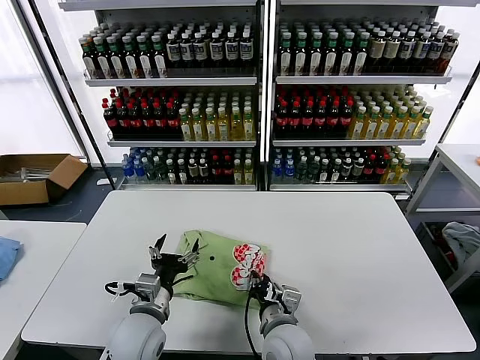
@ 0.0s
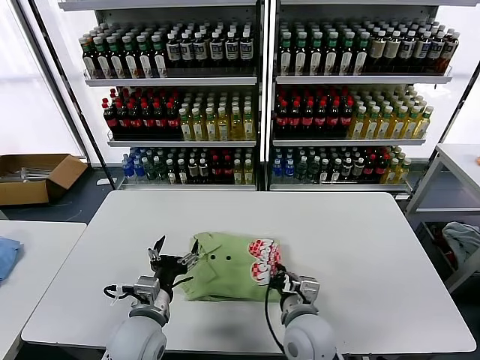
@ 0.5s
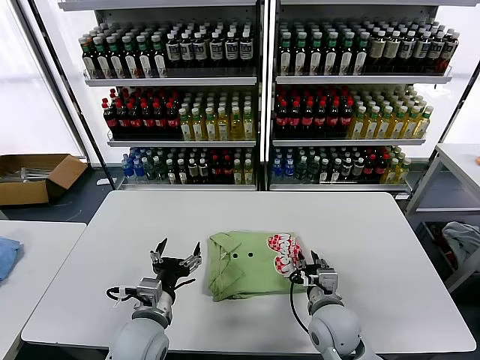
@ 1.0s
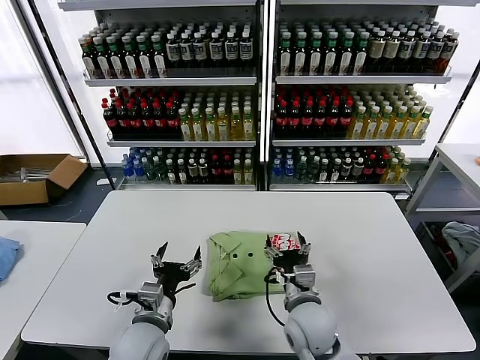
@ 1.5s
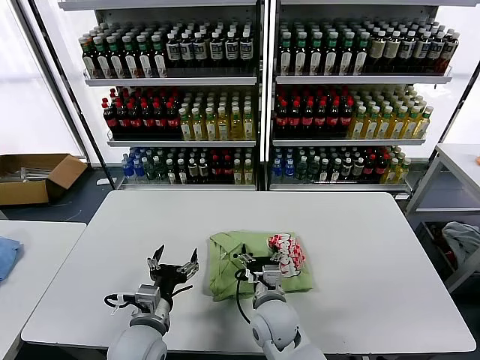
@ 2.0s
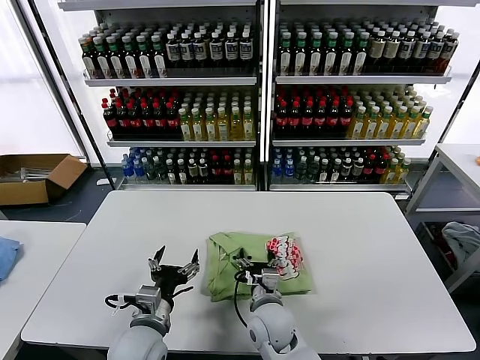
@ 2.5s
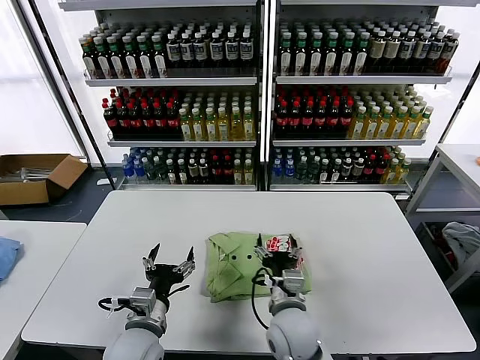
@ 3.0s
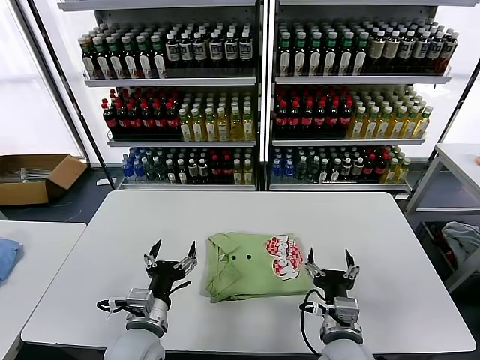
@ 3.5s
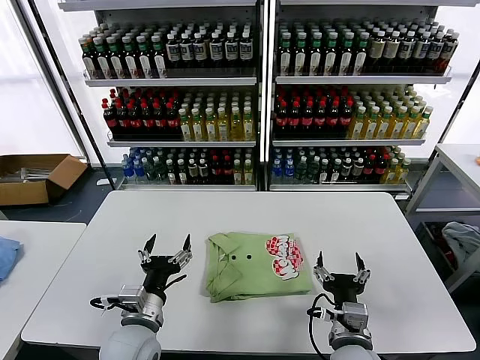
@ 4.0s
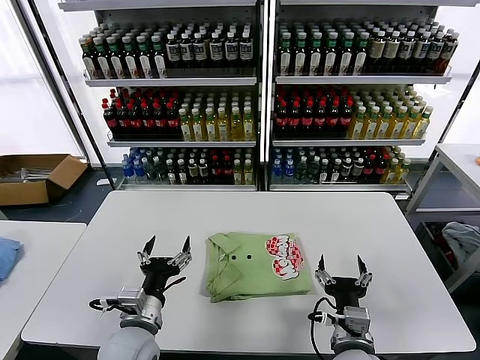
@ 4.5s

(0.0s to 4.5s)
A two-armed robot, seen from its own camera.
Task of the whole recording: fold and organize the clothes.
Step, 0.0s - 2.5s: Drag the clothes to the center of the table.
0.0s - 2.0s: The right gripper is displaced forward by some 5 cm, moves some 10 cm to the right and comes back, and opens its fingers.
2.0s - 4.5s: The right gripper shifts about 15 cm to the right and backward.

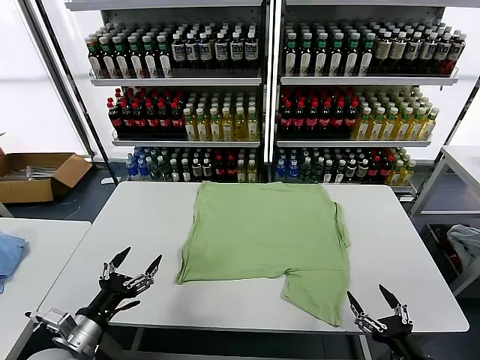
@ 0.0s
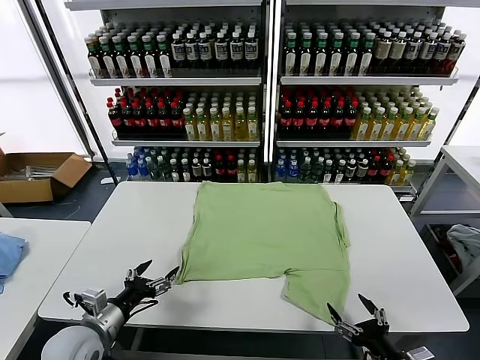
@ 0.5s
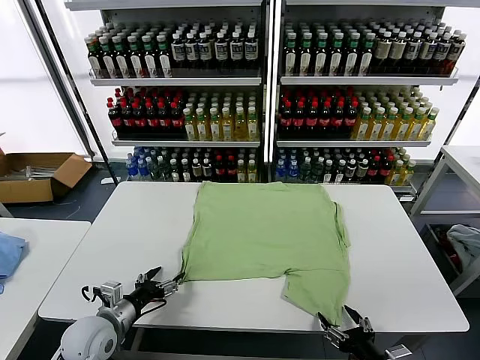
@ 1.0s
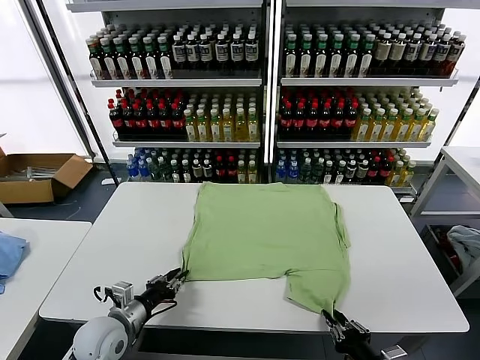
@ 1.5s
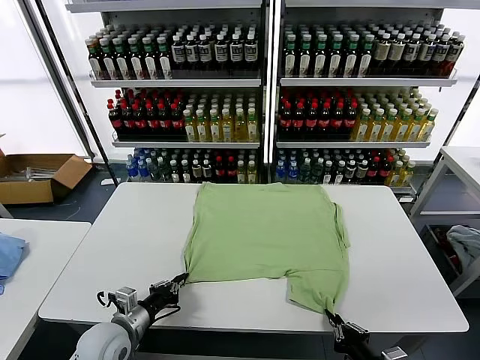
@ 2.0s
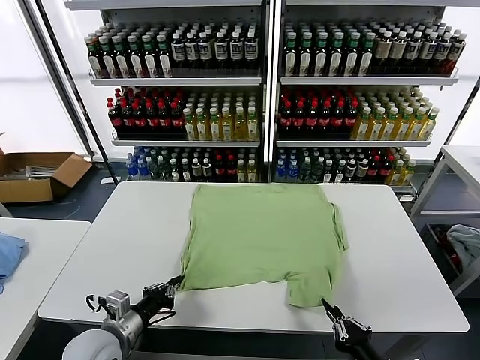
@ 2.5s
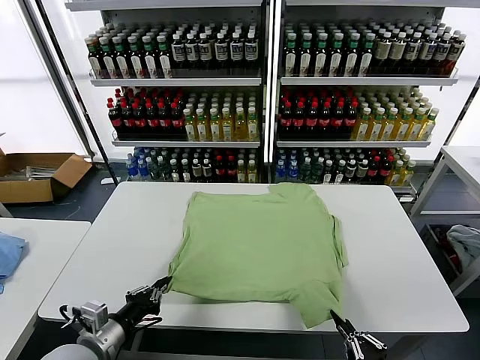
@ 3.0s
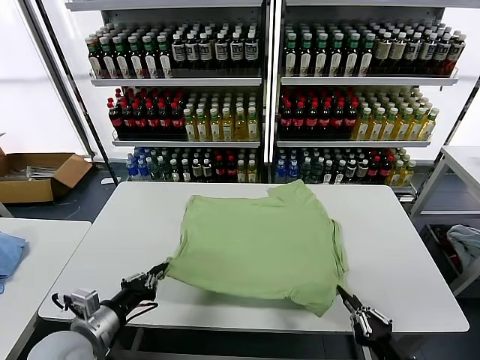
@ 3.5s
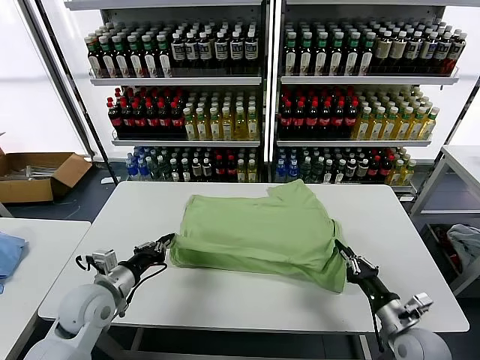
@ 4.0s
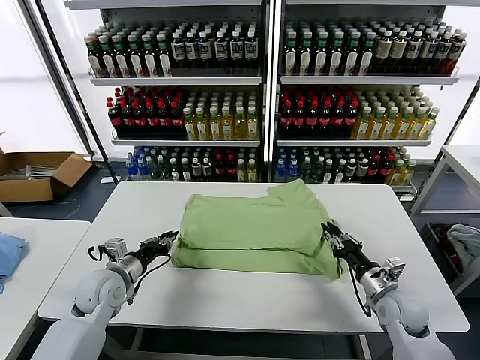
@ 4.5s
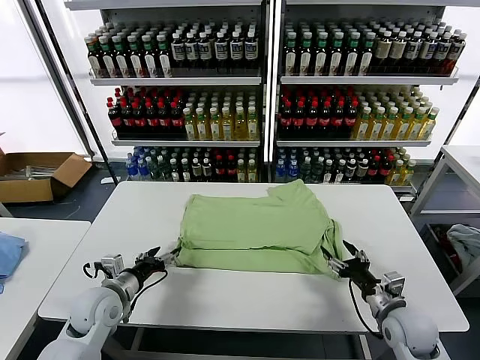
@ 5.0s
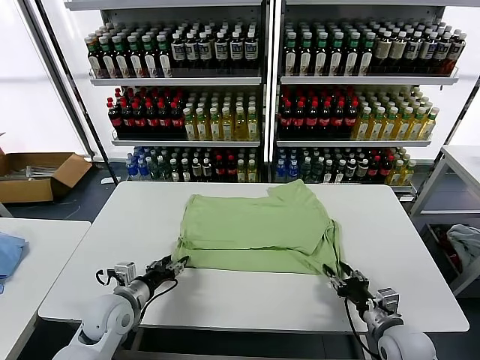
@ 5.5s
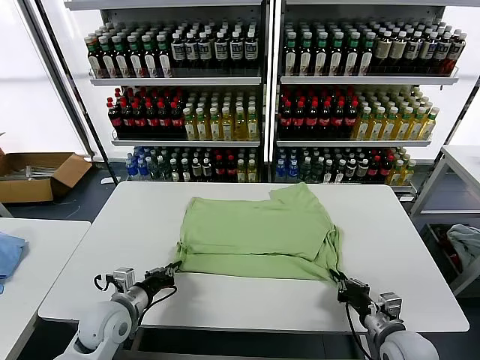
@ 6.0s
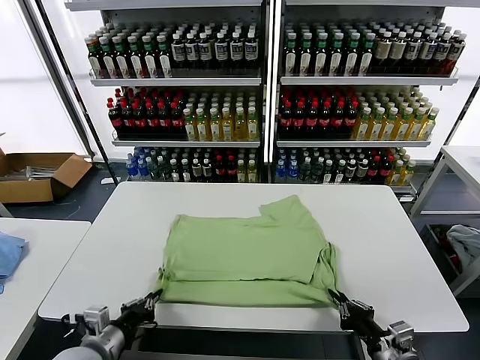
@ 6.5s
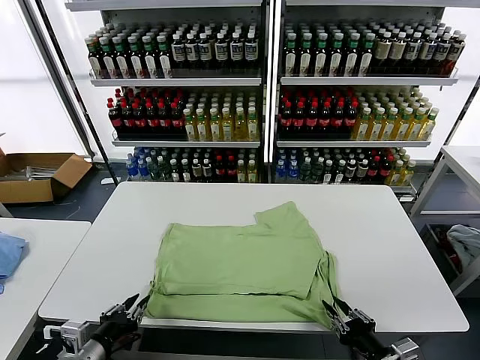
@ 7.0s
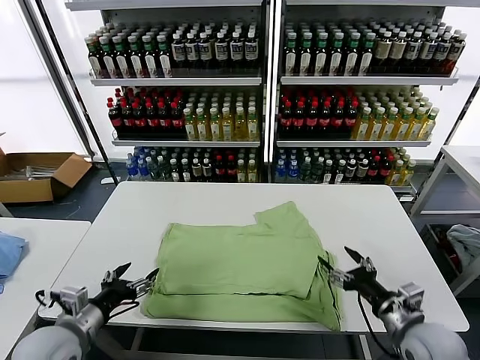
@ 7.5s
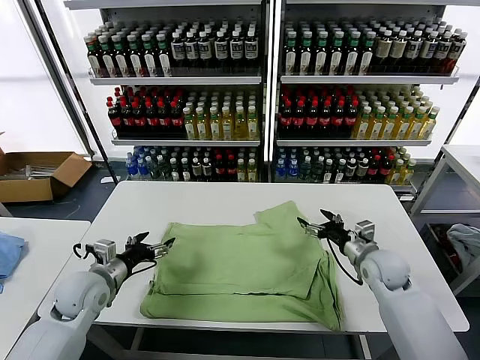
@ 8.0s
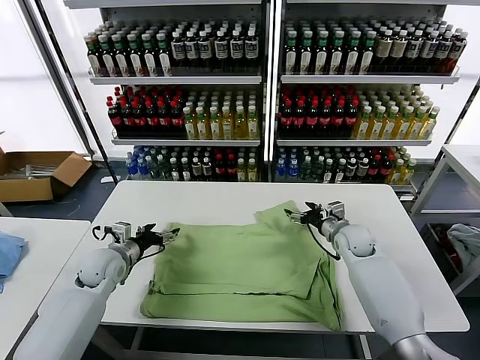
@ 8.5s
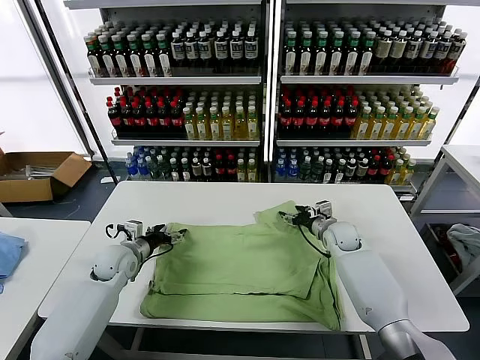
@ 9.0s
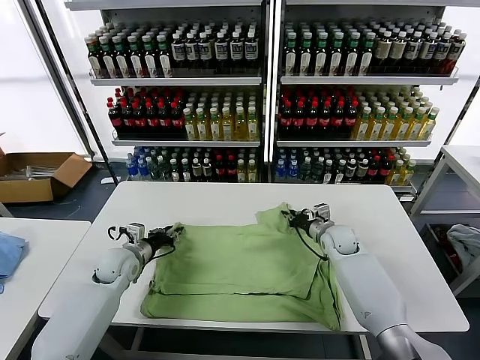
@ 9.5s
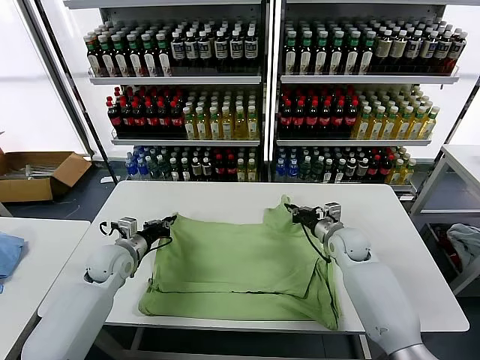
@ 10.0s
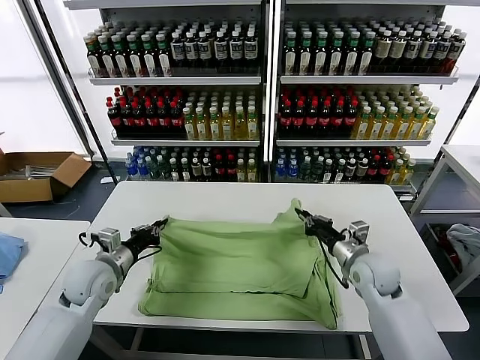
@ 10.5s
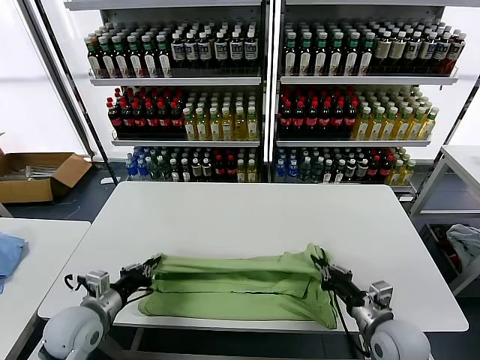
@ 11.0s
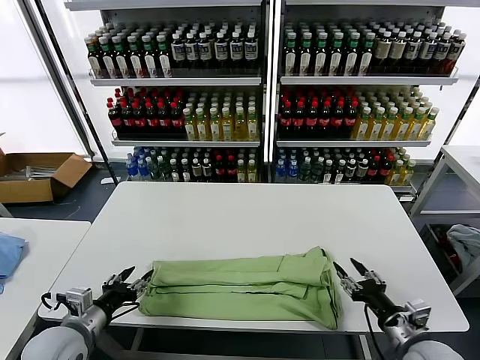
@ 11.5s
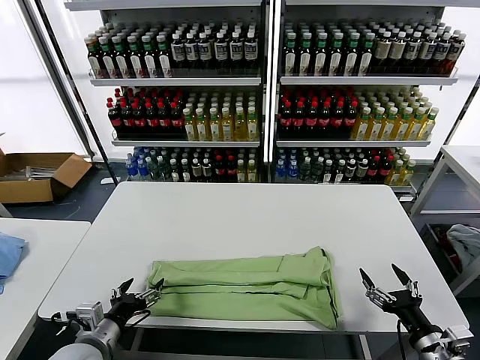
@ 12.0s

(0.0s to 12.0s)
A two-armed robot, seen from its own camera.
Task of the whole recording: fold and organize the clothes.
Step, 0.0s - 1.5s: use both grippers simultaneously to clamp the lower edge of the clothing fabric.
Step, 2.5s - 4.5s: use both grippers to drag the lower edge of the fabric forward and fold it over the upper edge.
Step, 5.0s - 7.0s: Drag the clothes downward with both gripper.
Step, 7.5s - 9.5s: use both grippers simultaneously to clamp the upper edge of the clothing fabric.
Step, 10.0s - 11.0s: use both grippers to drag the upper edge of the fabric backward and fold it over the lower edge.
2.0s - 4.0s: The left gripper goes about 10 cm upward and forward, while the right gripper moves forward and to the right, approximately 15 cm.
4.0s - 6.0s: The right gripper goes some 5 cm backward, and opens, then closes once more. The left gripper ends up about 5 cm from where it was, and opens and closes again.
6.0s - 8.0s: The left gripper travels backward and back again, about 15 cm each way, and opens up, while the right gripper travels forward by approximately 20 cm, and opens.
8.0s - 10.0s: The right gripper closes. The left gripper travels forward by about 10 cm, and closes.
10.0s - 12.0s: The two grippers go some 25 cm backward. The right gripper opens its fingers. Meanwhile the left gripper opens.

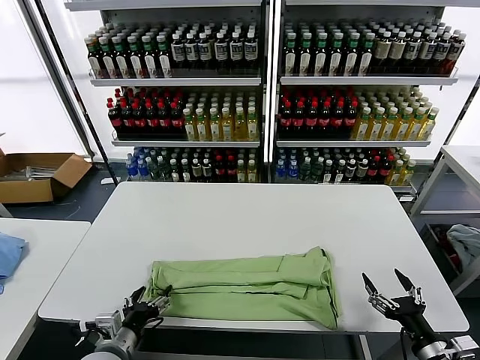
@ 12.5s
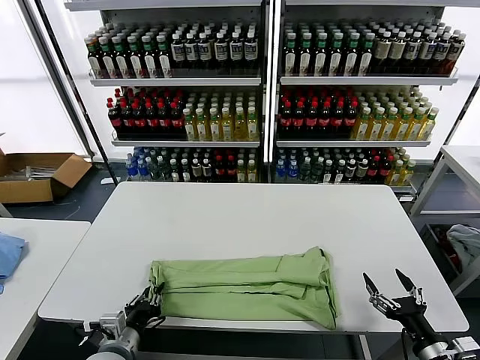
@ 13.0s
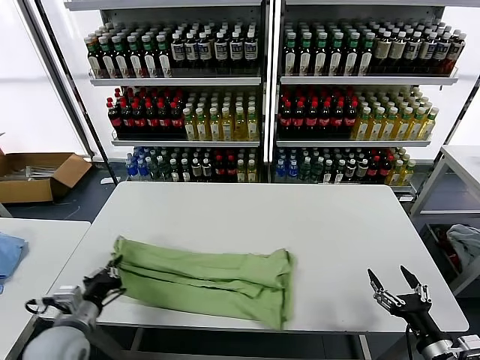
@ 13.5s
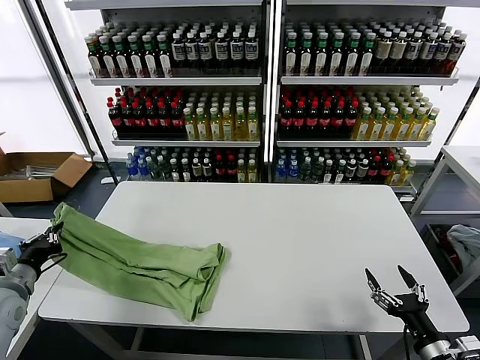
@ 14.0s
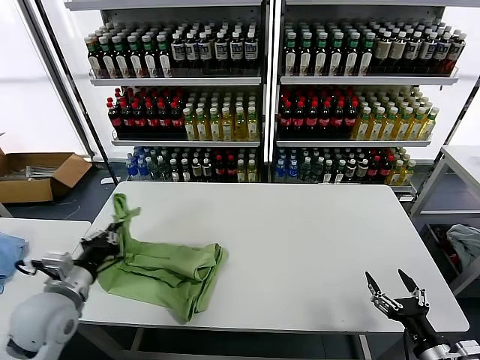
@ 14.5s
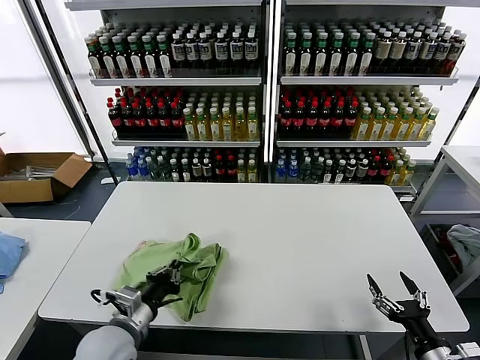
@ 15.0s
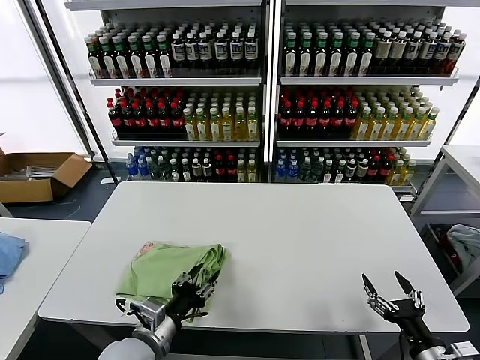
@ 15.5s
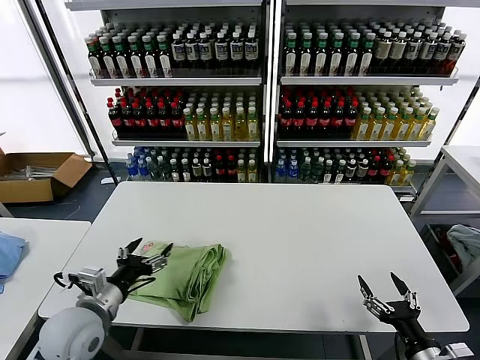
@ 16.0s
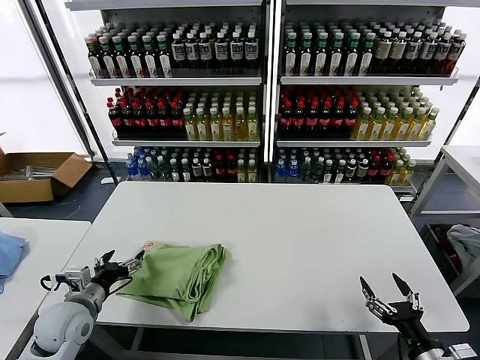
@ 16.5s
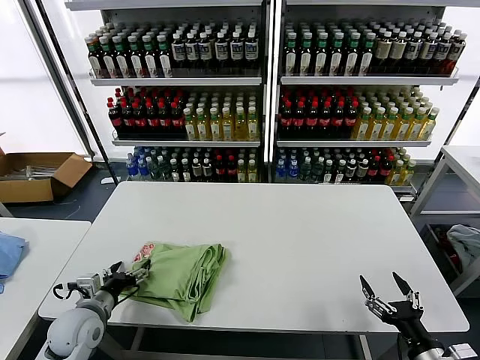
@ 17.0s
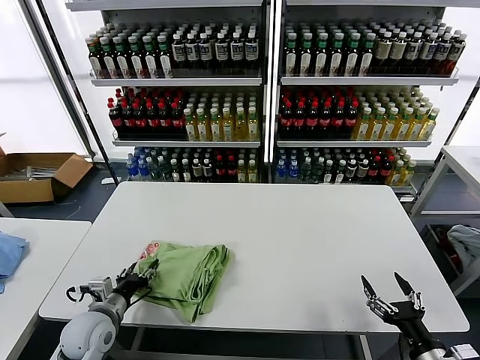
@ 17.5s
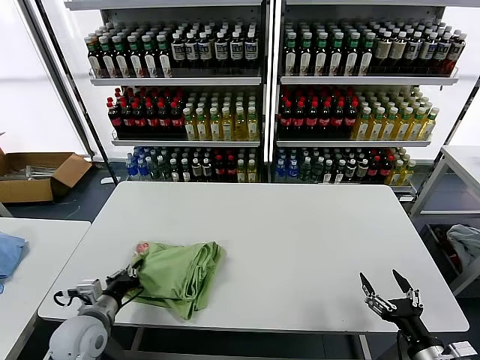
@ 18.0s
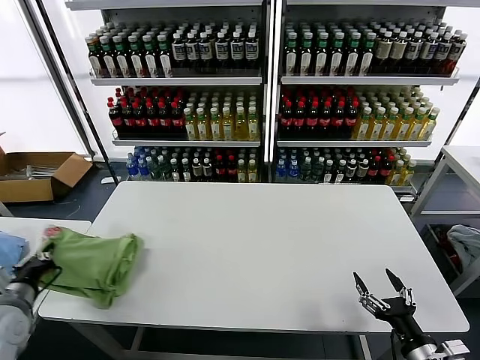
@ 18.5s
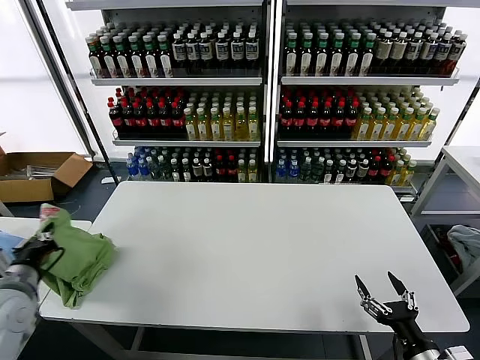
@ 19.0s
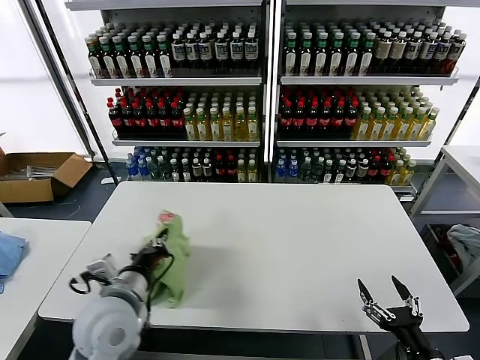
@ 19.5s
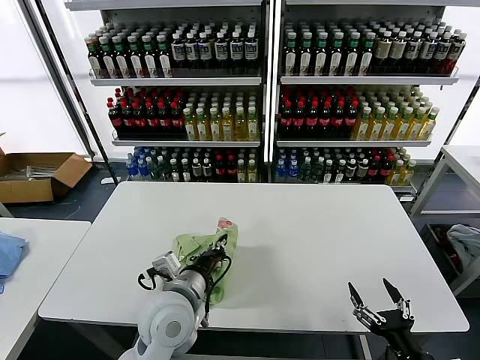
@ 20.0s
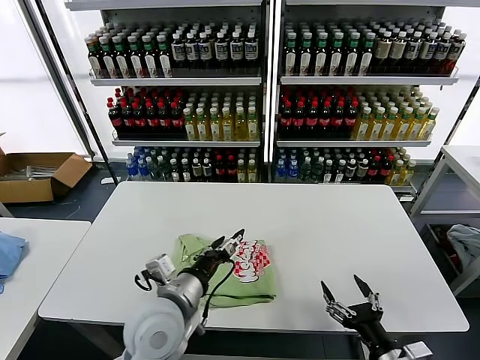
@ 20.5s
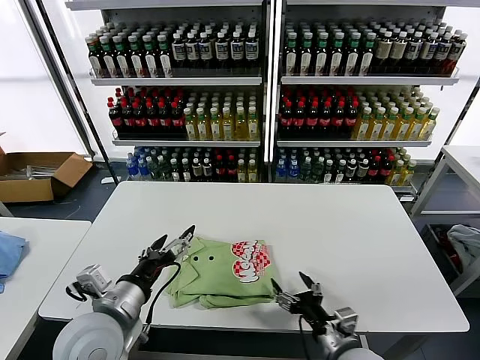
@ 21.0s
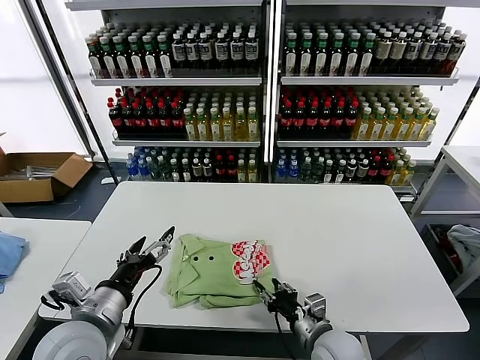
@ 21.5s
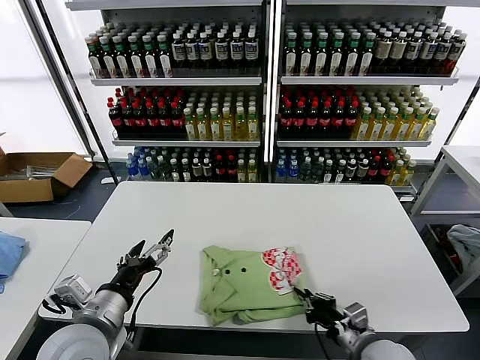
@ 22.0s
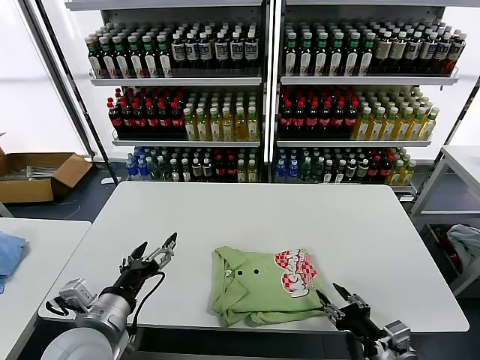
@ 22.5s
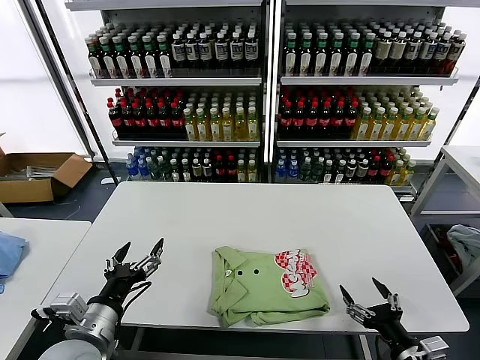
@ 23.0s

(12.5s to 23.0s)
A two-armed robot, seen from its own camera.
Task of the whole recording: fold and organize the clothes.
Step, 13.5s - 15.5s: use the left gripper to drag the left edge of the fabric to the left and folds it over the right edge.
Step, 16.0s - 20.0s: Flip the folded clothes over with left gripper.
Step, 20.5s - 22.5s: Drag the clothes to the center of the table.
12.5s - 14.5s: The left gripper travels upward, to the left and forward by roughly 15 cm, and closes.
14.5s - 16.5s: The left gripper shifts about 5 cm downward, moves approximately 15 cm to the right and comes back, and opens.
16.5s - 19.0s: The left gripper is displaced upward and to the left by some 10 cm, and closes.
19.0s - 21.0s: The right gripper goes approximately 15 cm to the left and forward. Meanwhile the left gripper goes approximately 20 cm to the right, and opens up.
21.0s - 23.0s: The right gripper shifts approximately 15 cm to the right and backward, and closes and opens again; the left gripper moves some 5 cm.
